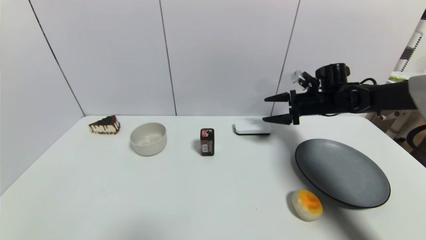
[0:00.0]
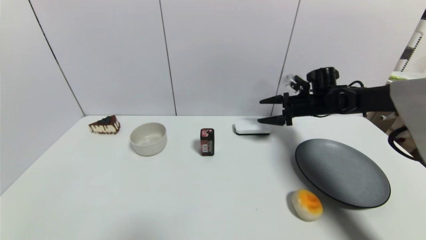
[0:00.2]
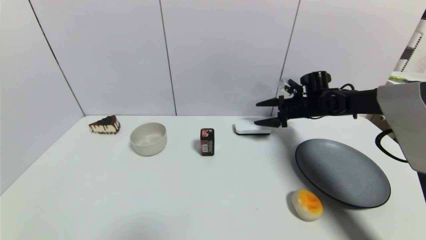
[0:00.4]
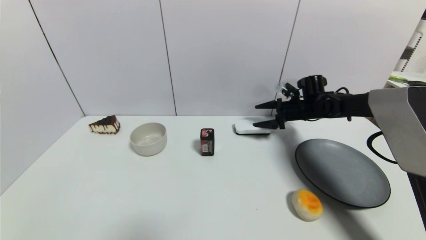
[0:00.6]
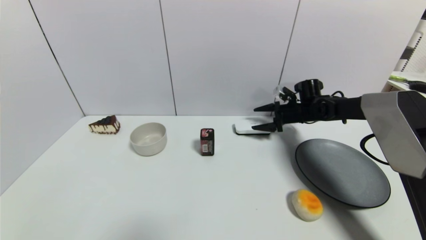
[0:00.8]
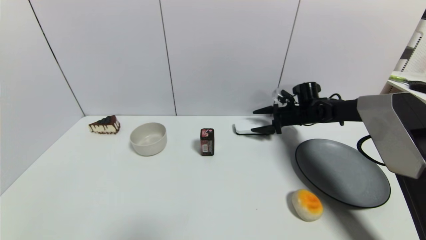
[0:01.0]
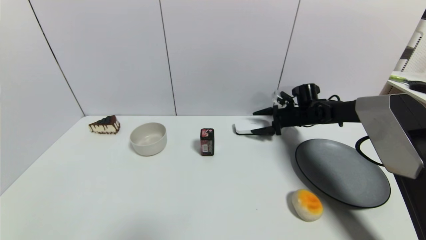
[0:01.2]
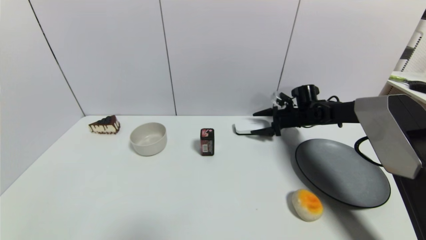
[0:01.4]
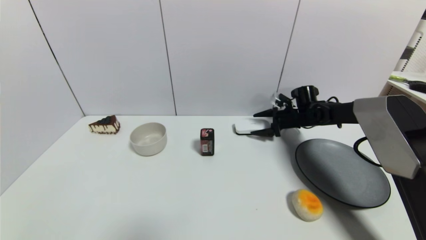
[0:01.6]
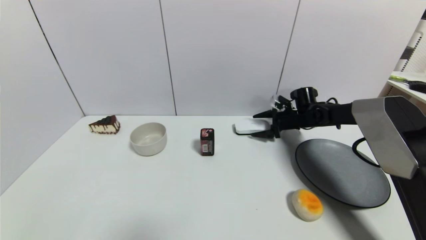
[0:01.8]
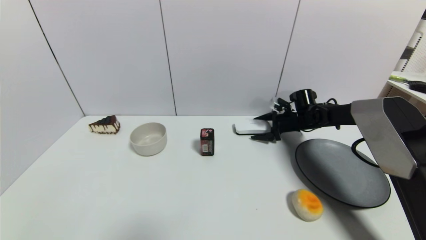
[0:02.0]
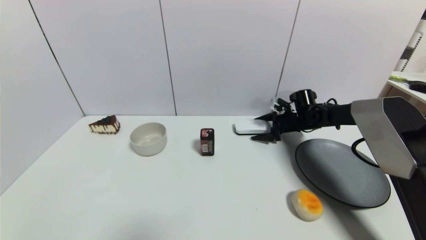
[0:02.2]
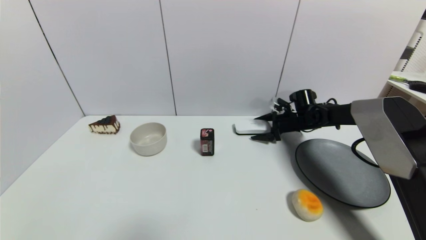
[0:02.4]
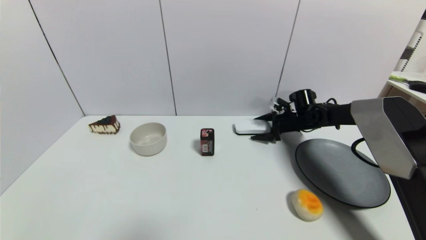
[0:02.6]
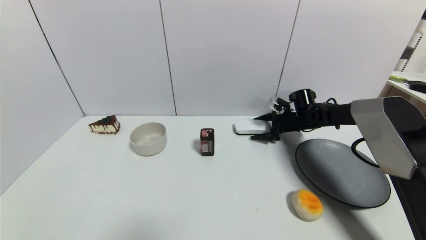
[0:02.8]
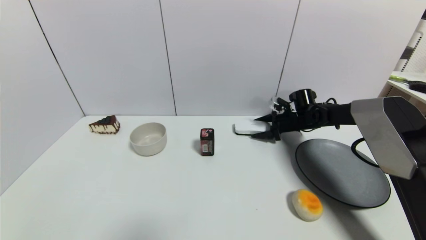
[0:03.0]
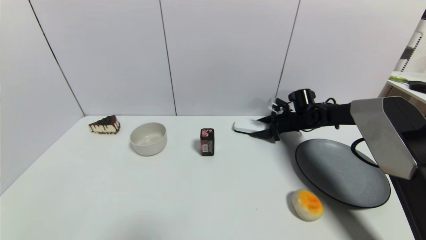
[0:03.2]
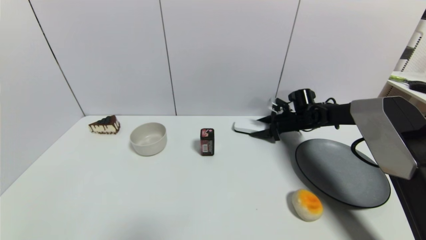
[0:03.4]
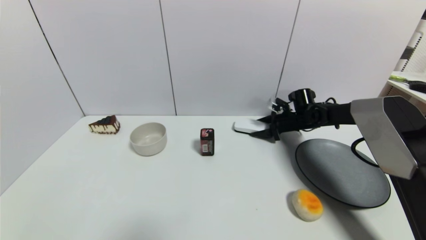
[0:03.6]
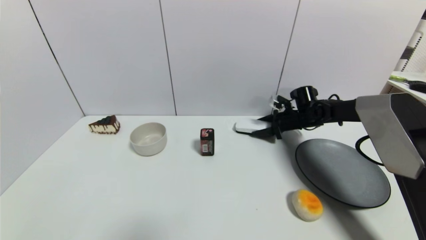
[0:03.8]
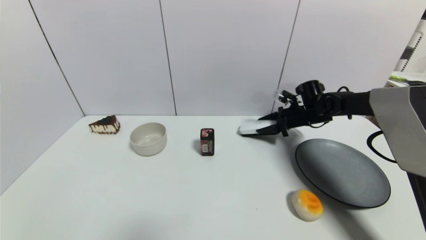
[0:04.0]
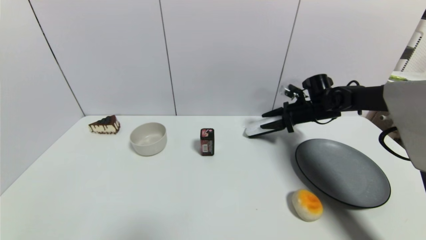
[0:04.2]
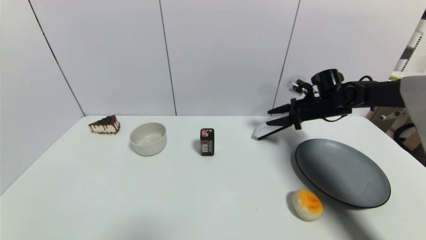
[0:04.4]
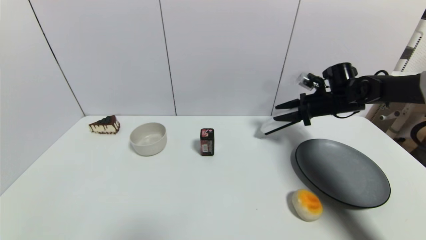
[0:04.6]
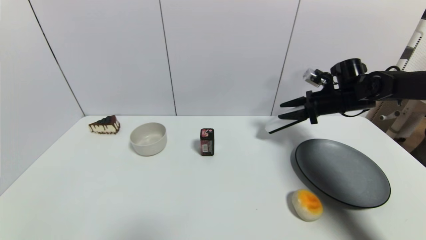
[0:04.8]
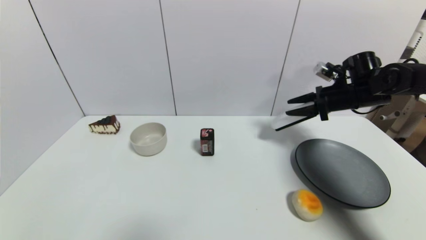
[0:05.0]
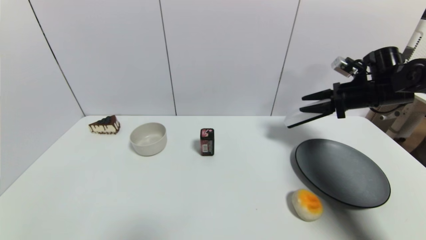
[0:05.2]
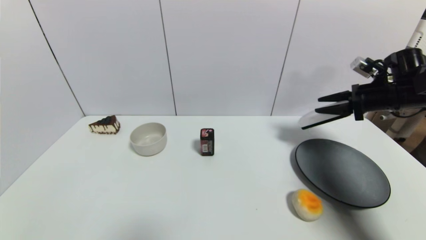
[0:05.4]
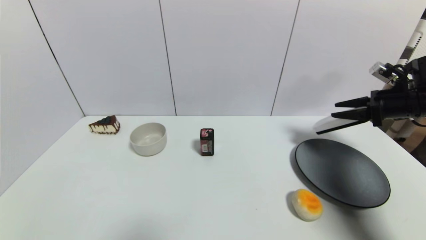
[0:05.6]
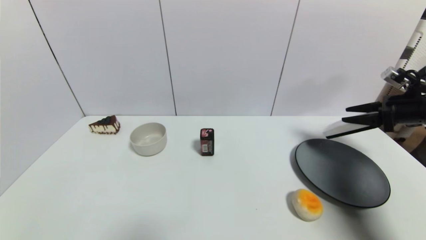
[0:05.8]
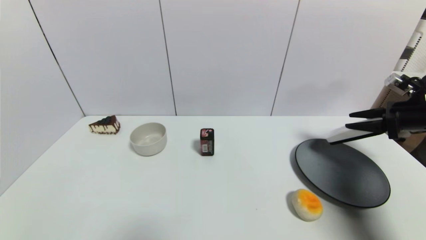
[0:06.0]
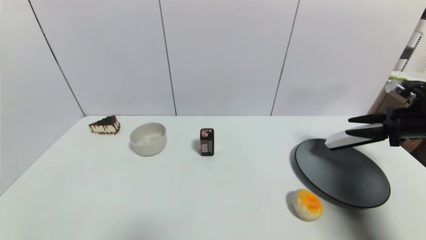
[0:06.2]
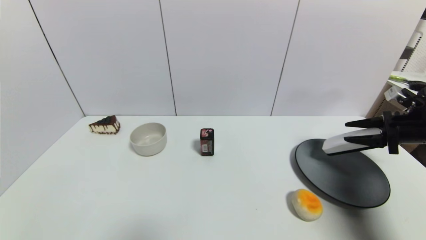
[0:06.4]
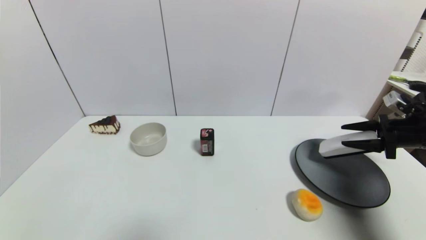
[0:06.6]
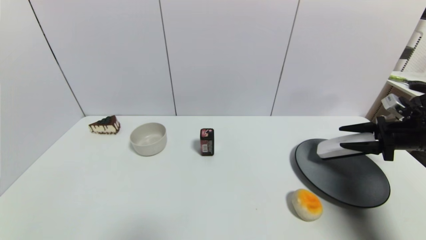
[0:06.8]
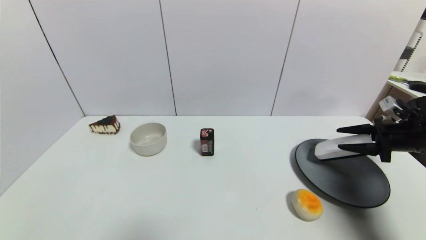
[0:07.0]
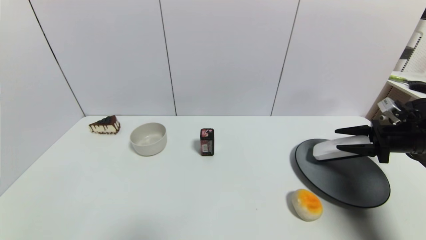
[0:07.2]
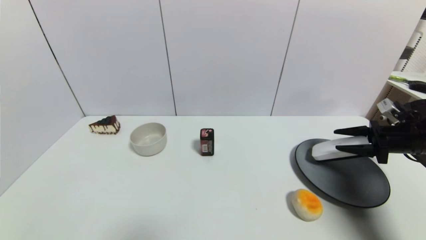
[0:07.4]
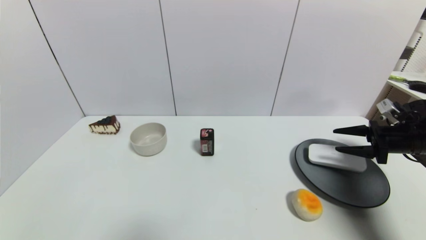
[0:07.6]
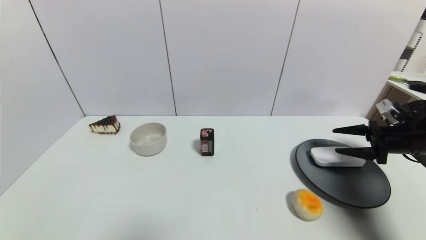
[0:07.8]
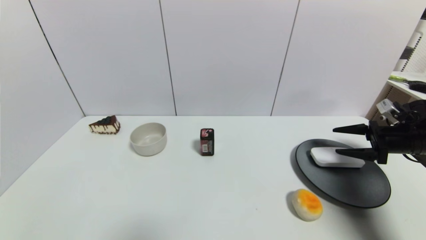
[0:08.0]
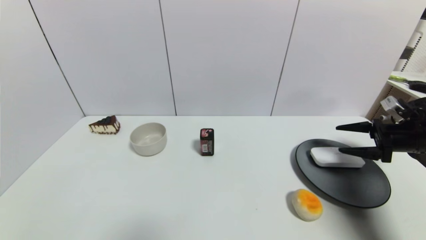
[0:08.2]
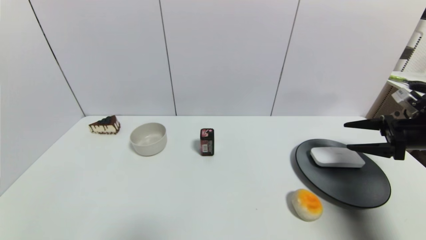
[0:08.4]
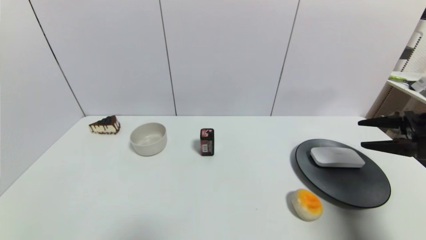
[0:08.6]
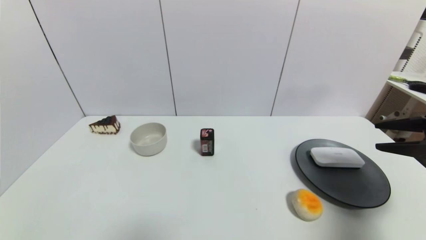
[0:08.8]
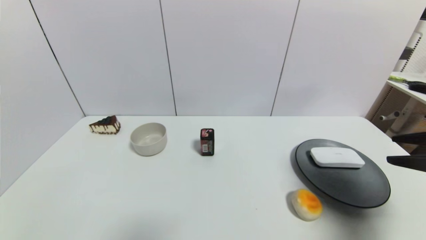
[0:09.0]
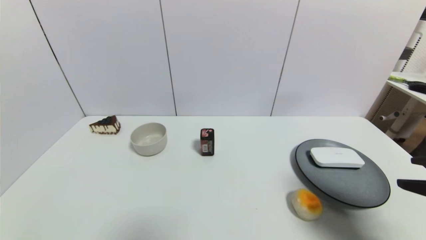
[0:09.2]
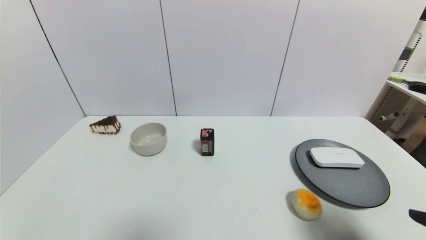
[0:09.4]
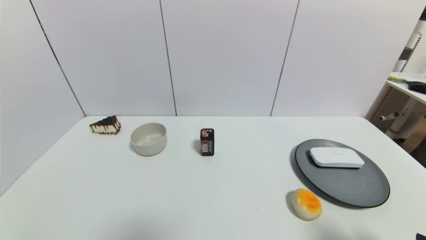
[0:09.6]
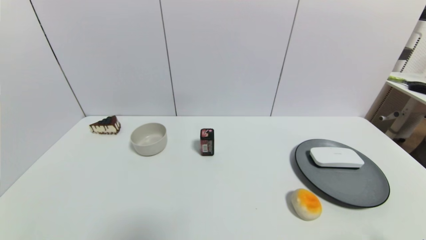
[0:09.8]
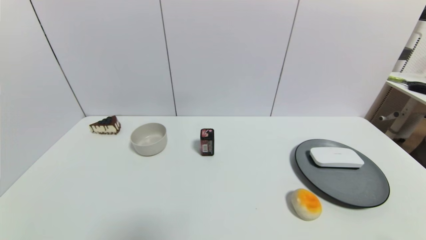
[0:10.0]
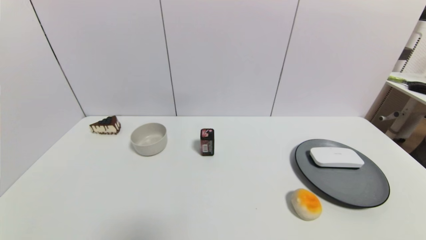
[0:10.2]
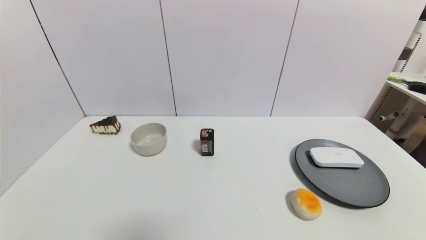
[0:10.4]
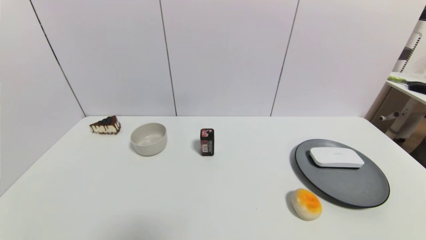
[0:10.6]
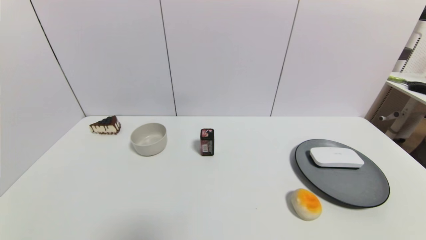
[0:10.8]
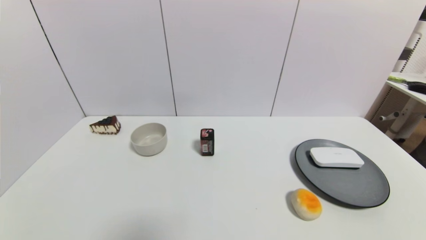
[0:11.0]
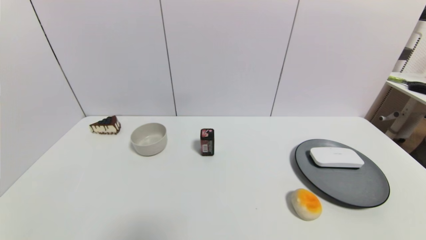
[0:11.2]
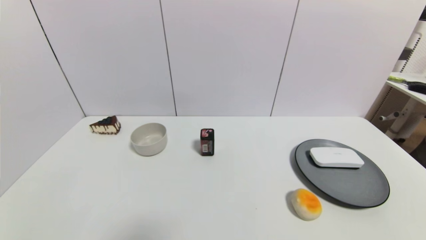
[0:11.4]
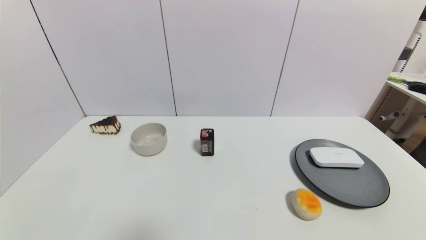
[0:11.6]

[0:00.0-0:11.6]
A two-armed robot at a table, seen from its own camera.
Task of the whole recording: use a gripper to pick the target object and place on the gray plate.
Step, 0:00.0 to 0:03.2: Grasp the blackboard erasure with the right gripper.
Step, 0:03.4 to 0:07.8: Place the blackboard erasure on the gray plate with the right gripper.
0:00.0 to 0:01.4: The right gripper heads downward and forward, covering about 10 cm.
0:01.4 to 0:02.8: There are only small adjustments of the grippers.
0:02.8 to 0:04.4: The right gripper heads upward, covering some 10 cm, and closes its fingers.
0:04.4 to 0:05.8: The right gripper heads to the right and backward, covering some 20 cm.
0:05.8 to 0:07.2: The right gripper goes approximately 5 cm downward.
0:07.2 to 0:08.8: The right gripper is displaced backward and upward by some 15 cm, and opens up.
0:08.8 to 0:10.2: The right gripper moves backward and downward, approximately 25 cm.

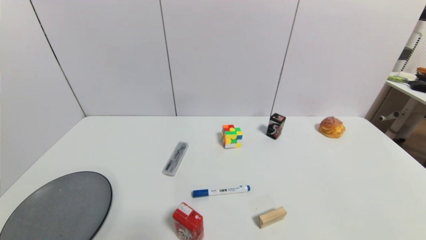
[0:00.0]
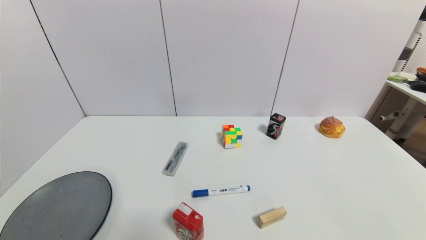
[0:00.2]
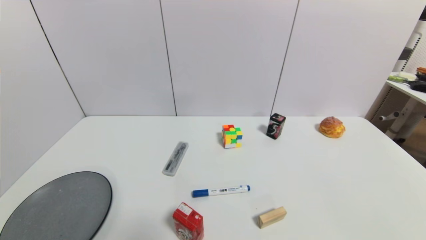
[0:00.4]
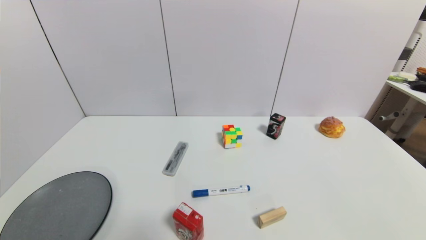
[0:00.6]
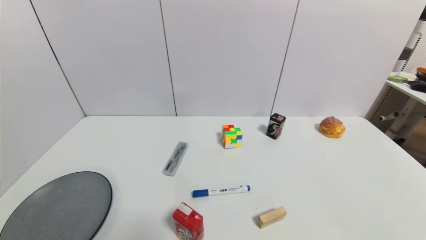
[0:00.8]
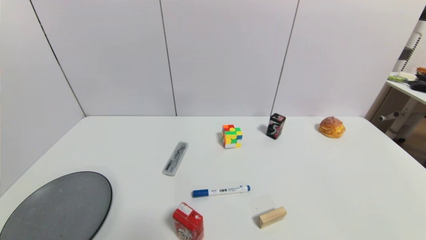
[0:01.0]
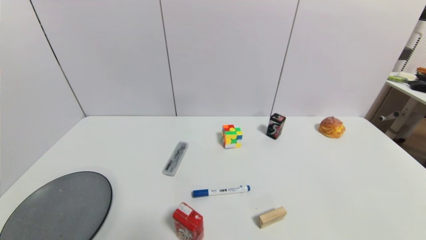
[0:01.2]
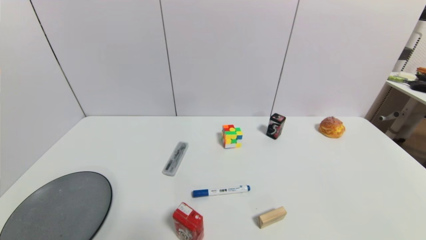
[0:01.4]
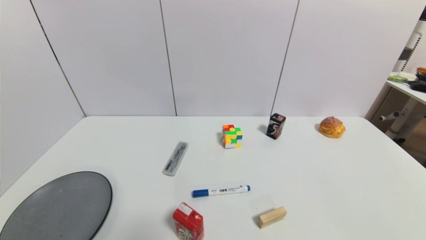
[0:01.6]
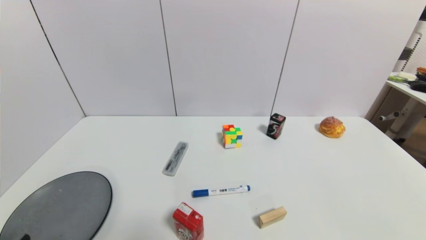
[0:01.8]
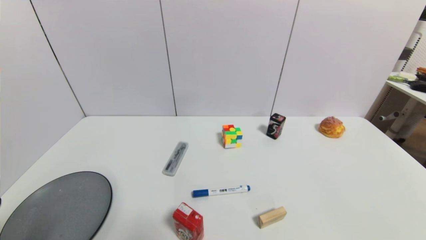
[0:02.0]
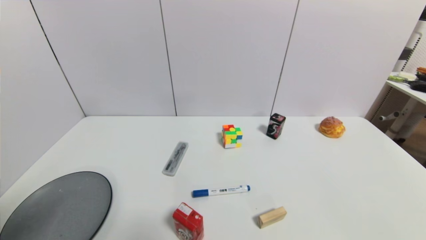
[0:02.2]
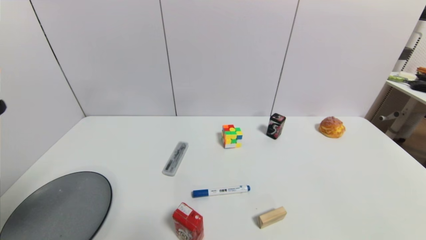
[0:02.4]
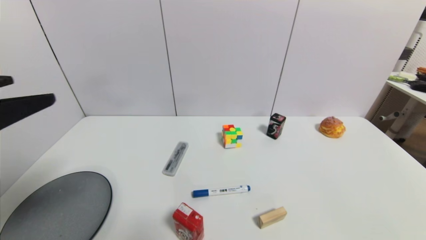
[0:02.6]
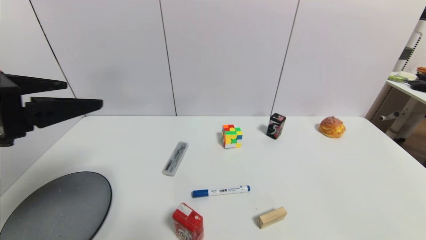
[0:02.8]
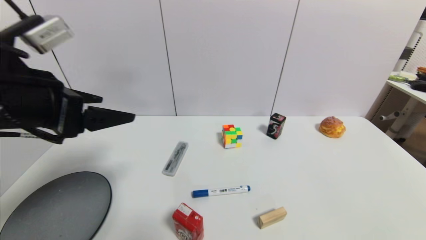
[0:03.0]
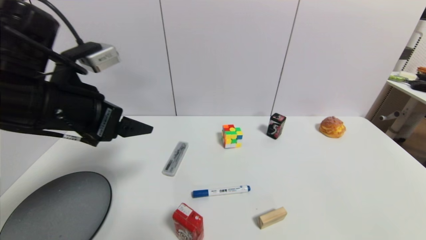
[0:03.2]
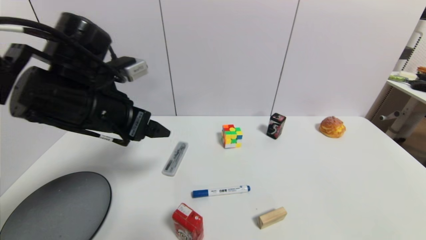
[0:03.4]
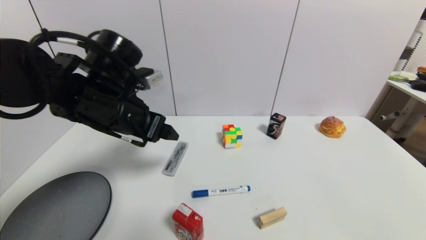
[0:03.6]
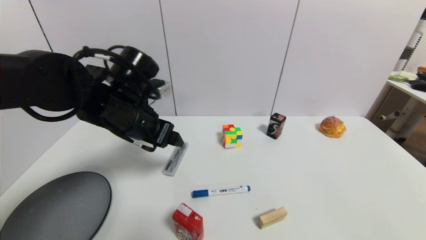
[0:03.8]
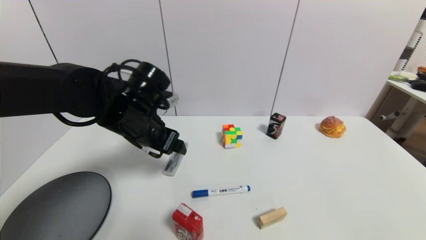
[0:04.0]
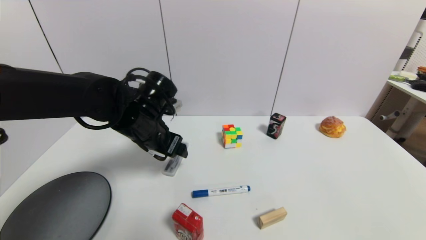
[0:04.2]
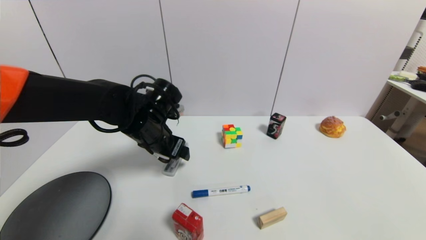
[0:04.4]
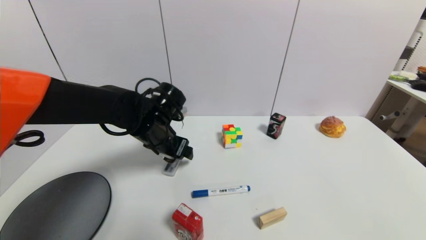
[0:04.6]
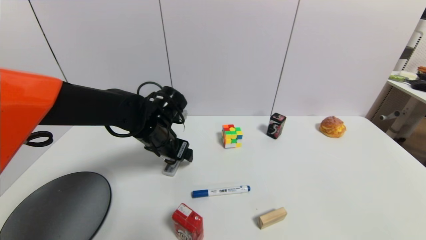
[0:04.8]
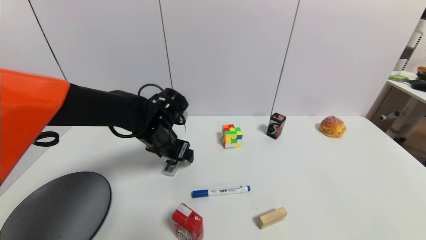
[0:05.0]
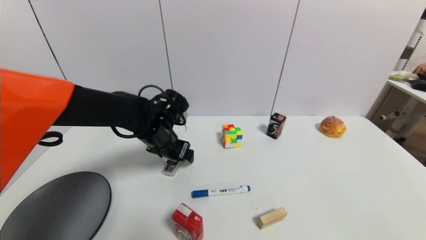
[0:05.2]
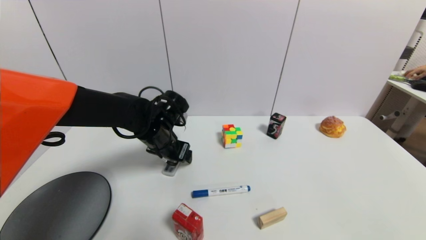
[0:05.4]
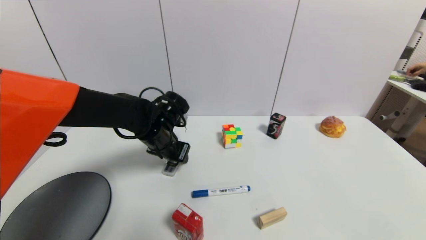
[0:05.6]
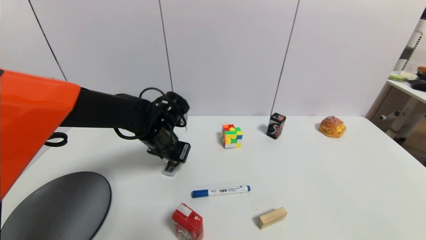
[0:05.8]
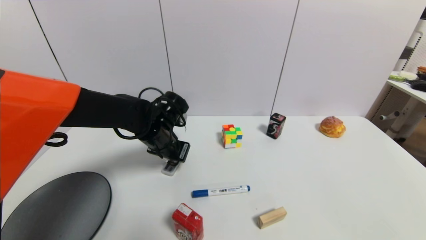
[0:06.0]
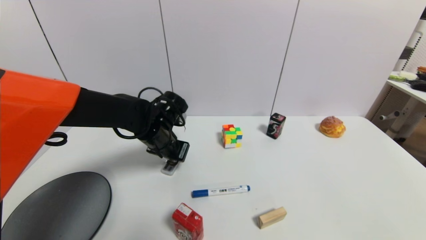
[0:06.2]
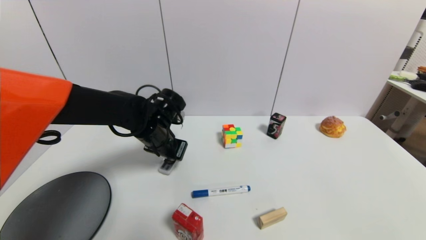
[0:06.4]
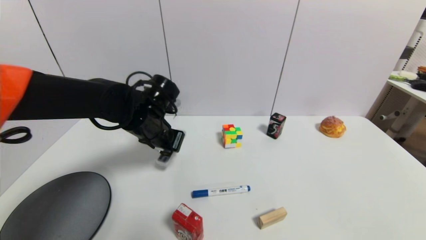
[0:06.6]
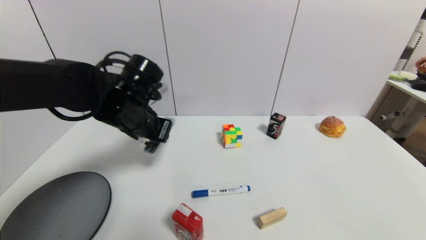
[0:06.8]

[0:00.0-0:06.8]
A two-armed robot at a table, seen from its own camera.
Task of the whole recording: use a gripper to pick the target object and place on the gray plate.
Step, 0:00.0 to 0:06.0: Grasp the compasses with the left gripper.
0:00.0 to 0:01.4: Both grippers stay about where they are.
0:01.4 to 0:02.8: The left gripper travels upward and forward by approximately 30 cm.
0:02.8 to 0:04.0: The left gripper travels forward, to the right and downward by some 25 cm.
0:04.0 to 0:05.4: The left gripper is displaced downward by approximately 5 cm.
0:05.4 to 0:06.8: The left gripper moves upward, some 10 cm, and closes its fingers.
